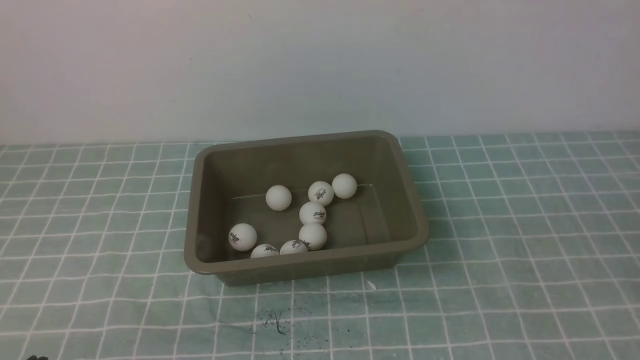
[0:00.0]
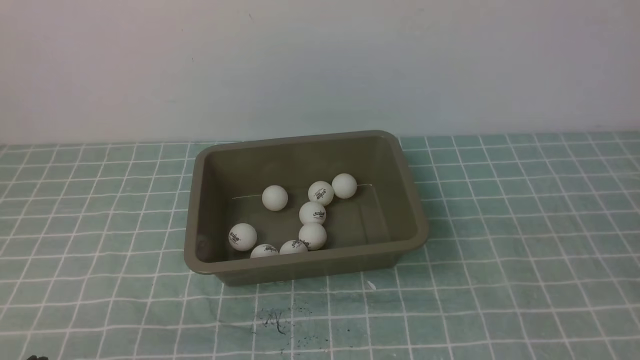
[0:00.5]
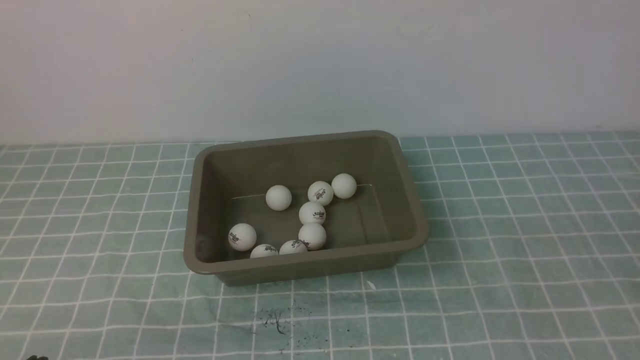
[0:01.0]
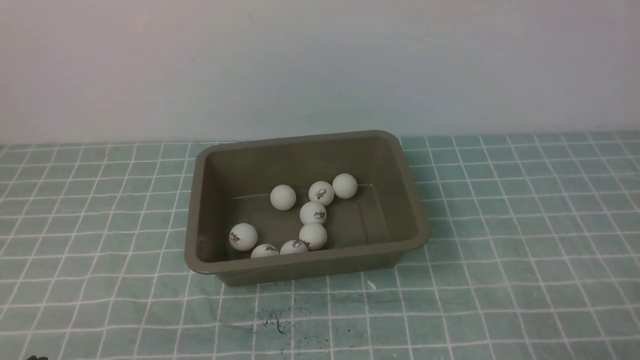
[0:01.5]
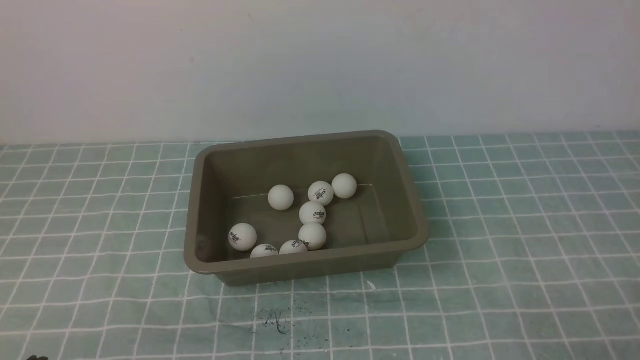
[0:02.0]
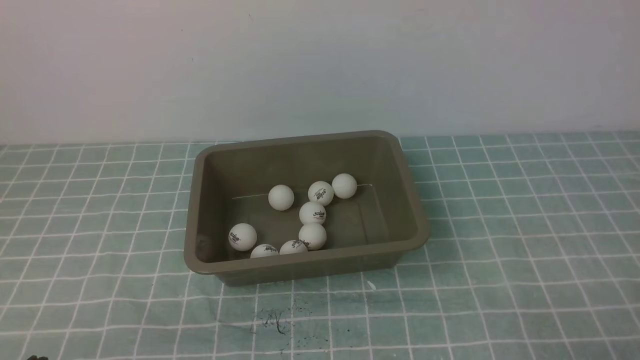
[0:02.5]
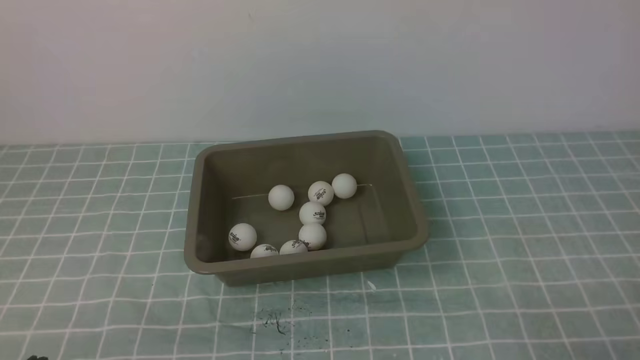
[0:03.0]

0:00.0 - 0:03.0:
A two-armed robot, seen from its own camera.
0:01.5 - 0:03.0: Both grippers stay put.
